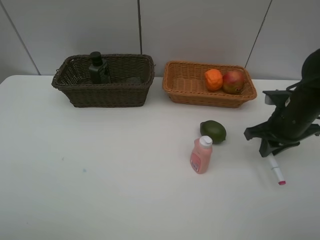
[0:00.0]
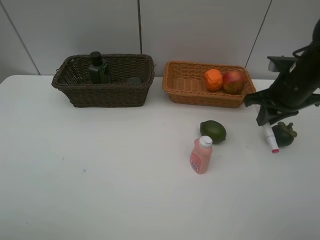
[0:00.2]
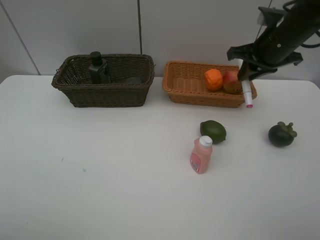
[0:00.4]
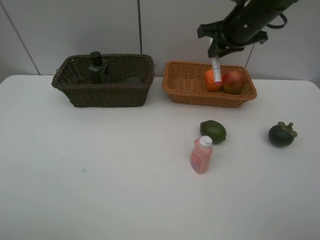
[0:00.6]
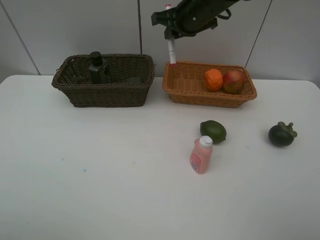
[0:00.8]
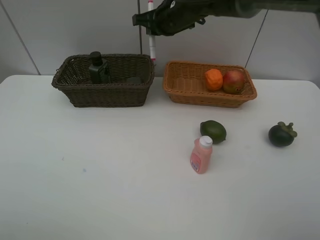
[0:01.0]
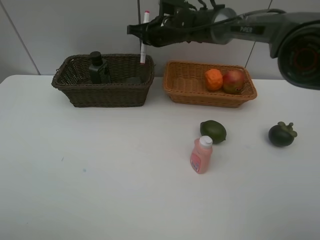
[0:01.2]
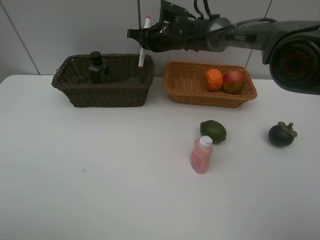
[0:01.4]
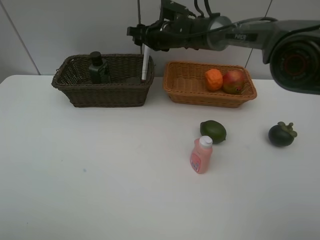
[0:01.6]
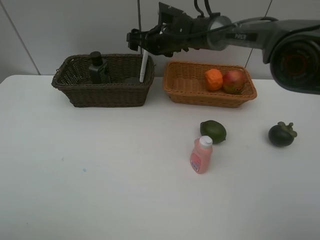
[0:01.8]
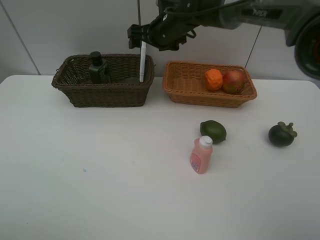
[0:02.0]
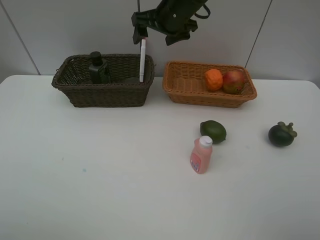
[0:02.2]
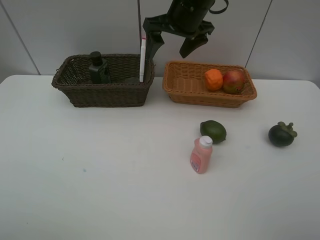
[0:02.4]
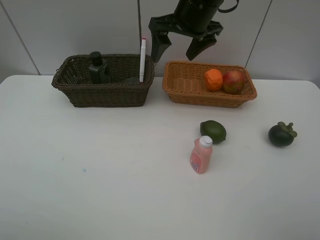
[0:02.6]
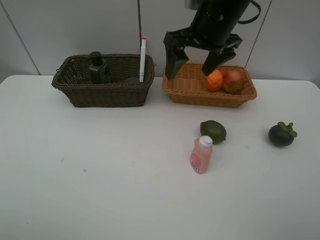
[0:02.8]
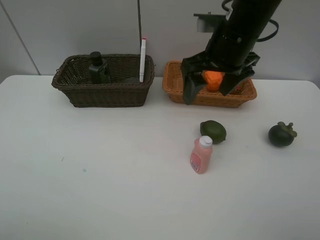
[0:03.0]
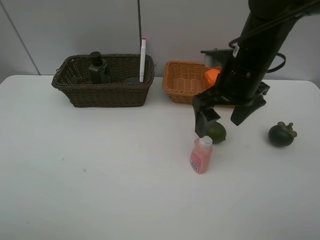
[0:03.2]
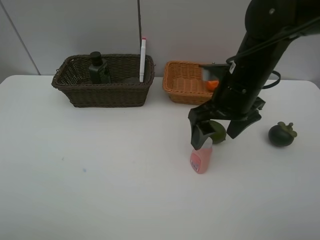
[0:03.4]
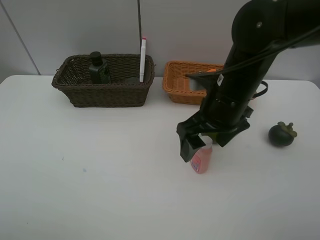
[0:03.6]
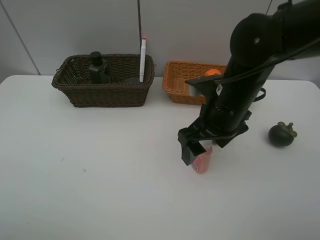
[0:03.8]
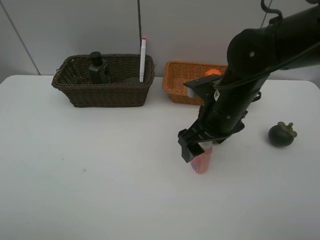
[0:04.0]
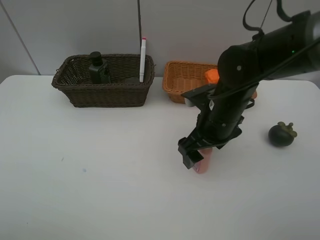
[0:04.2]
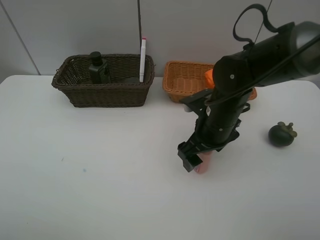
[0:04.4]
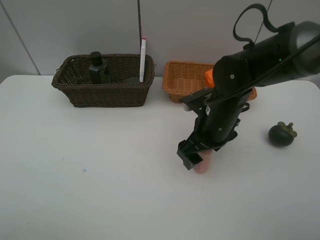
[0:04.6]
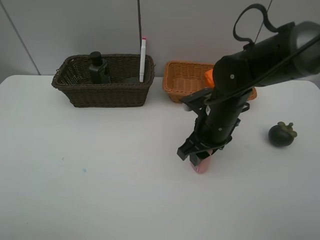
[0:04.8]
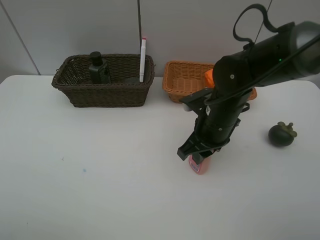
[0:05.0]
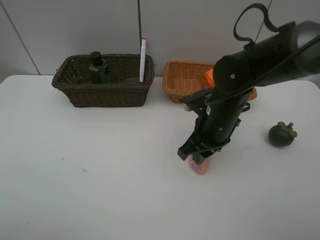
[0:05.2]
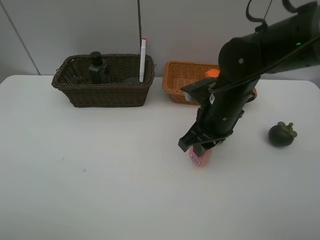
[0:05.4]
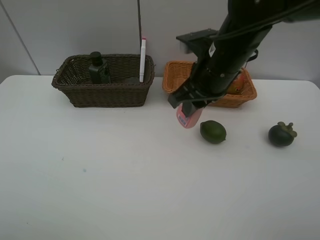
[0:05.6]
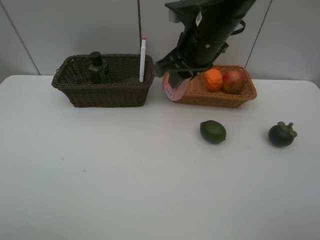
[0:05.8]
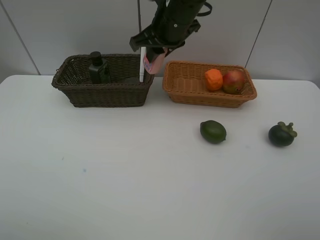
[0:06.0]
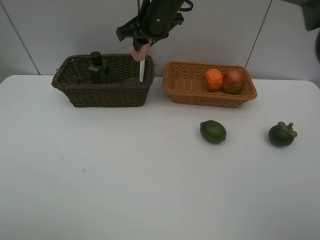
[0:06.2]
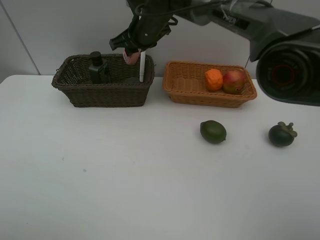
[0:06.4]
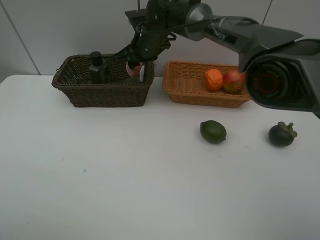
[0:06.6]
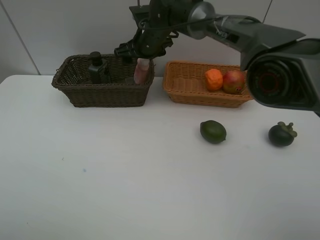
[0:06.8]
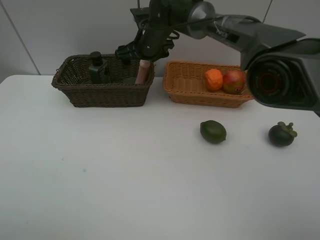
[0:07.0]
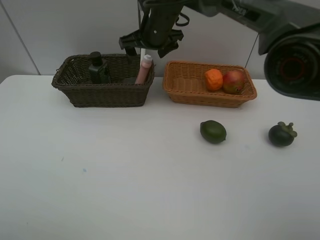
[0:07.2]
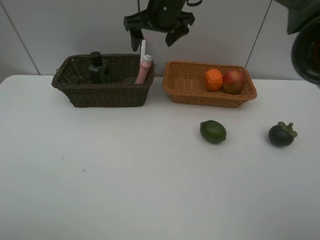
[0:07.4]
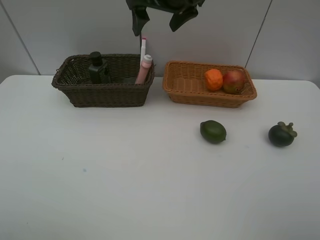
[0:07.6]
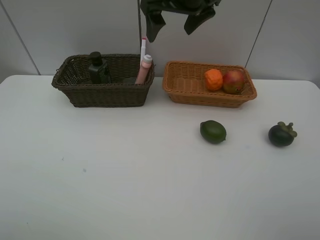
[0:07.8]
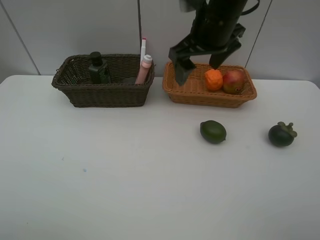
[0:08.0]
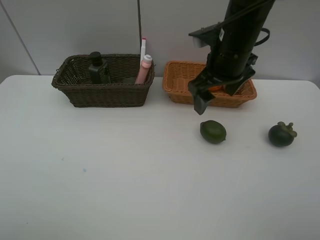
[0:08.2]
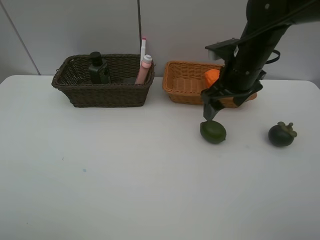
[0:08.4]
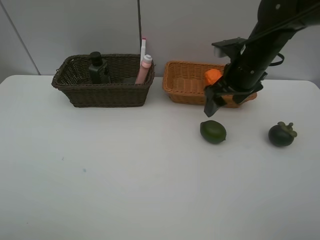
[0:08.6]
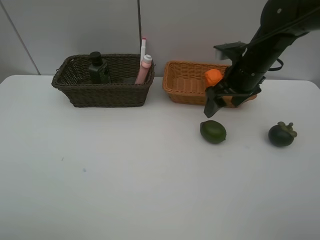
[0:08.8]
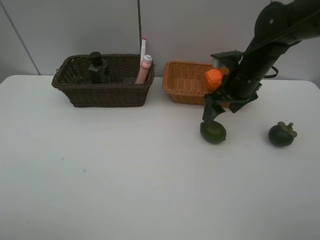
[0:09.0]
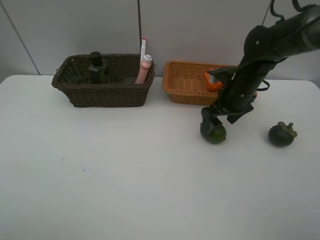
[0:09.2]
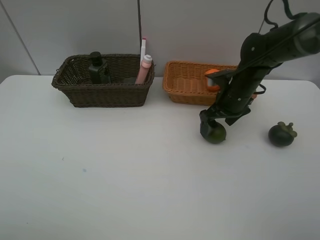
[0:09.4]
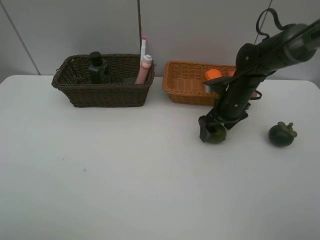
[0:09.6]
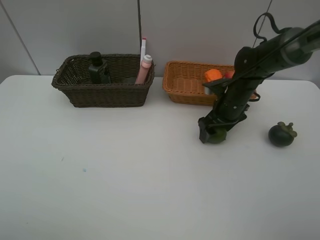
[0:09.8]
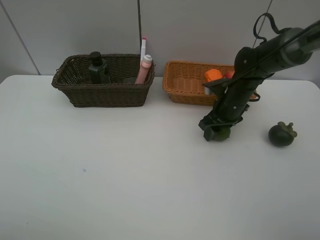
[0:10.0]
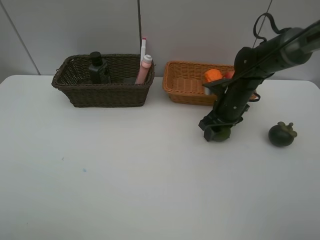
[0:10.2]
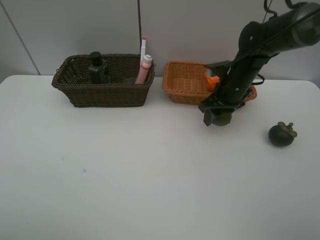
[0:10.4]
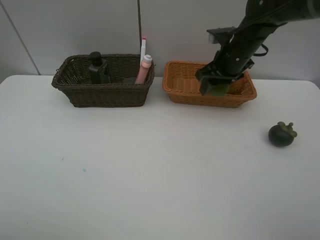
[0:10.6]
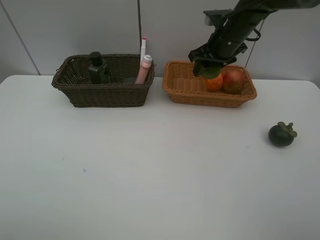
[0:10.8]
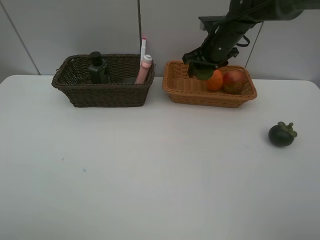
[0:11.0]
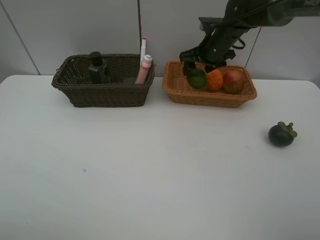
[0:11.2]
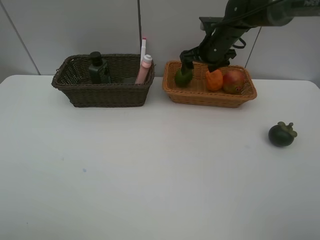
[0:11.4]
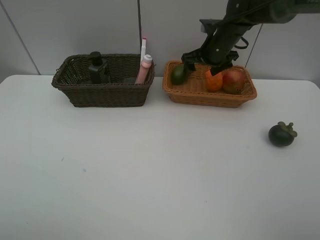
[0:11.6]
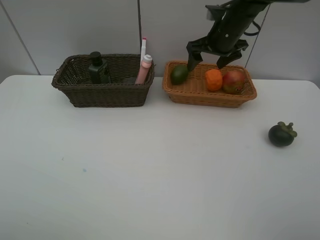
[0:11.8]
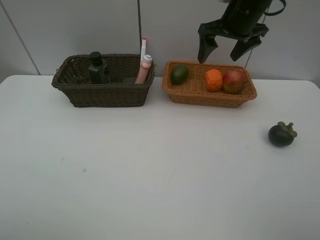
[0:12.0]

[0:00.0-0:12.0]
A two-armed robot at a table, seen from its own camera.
Task of the whole recording: Place multiple objects separately in different baskets.
Step, 0:00.0 to 0:02.0: Place the red marker in the dark basket with right gripper.
Step, 0:02.2 to 0:05.4: Pick up the laundry detergent with right gripper.
Step, 0:05.6 to 0:07.2: Place the laundry detergent in the dark basket with right gripper.
Step, 0:07.4 to 0:10.4: Pick up the lime with right gripper.
Step, 0:10.6 to 0:11.4: Place the lime in the light basket with right gripper.
0:00.0 to 0:01.6: The right gripper travels to the left and forward by roughly 35 cm, and opens up.
0:01.6 to 0:03.0: The right gripper moves backward, to the right and upward, roughly 25 cm.
0:03.0 to 0:04.4: The right gripper travels downward by roughly 15 cm.
0:04.4 to 0:06.0: The right gripper heads upward, forward and to the left, covering about 20 cm, and closes its fingers.
0:06.0 to 0:07.6: The right gripper goes approximately 5 cm upward, and opens.
0:07.6 to 0:09.0: The right gripper moves downward and to the right, about 20 cm.
0:09.0 to 0:10.4: The right gripper closes its fingers.
0:10.4 to 0:12.0: The right gripper is displaced upward by about 15 cm, and opens its fingers.

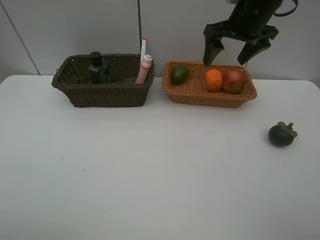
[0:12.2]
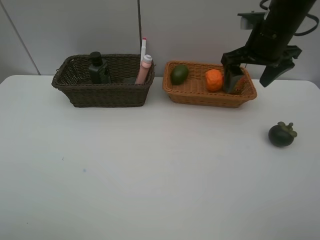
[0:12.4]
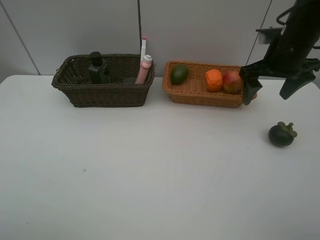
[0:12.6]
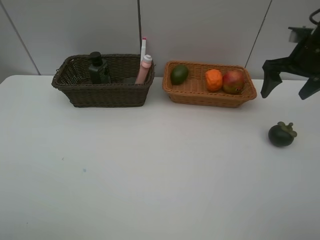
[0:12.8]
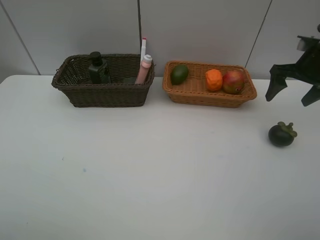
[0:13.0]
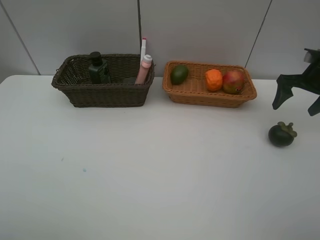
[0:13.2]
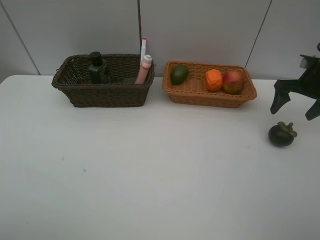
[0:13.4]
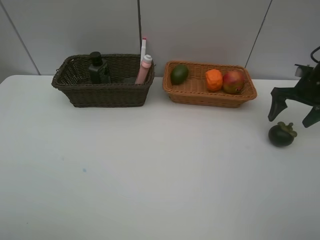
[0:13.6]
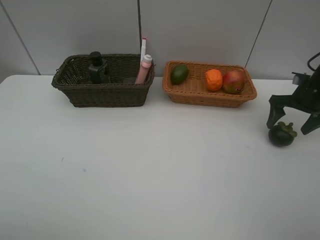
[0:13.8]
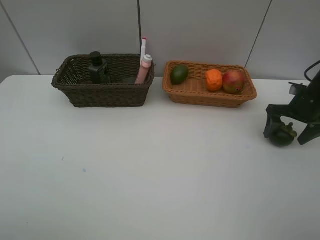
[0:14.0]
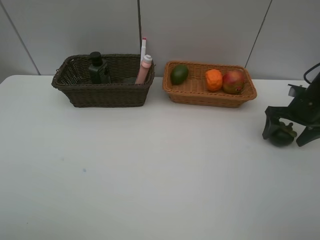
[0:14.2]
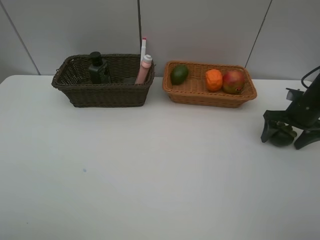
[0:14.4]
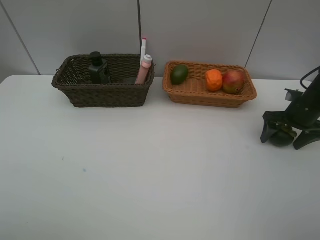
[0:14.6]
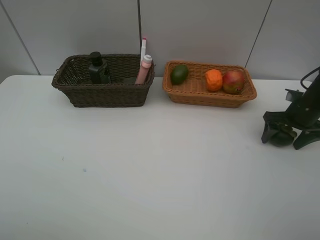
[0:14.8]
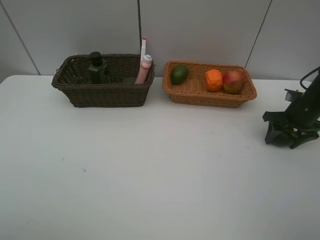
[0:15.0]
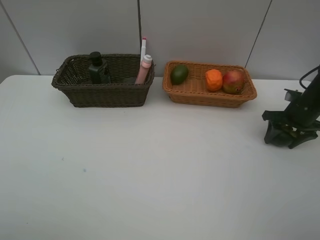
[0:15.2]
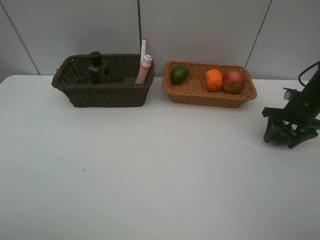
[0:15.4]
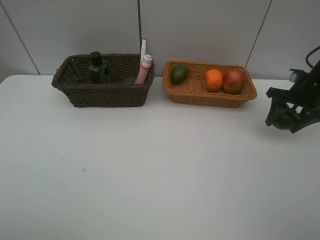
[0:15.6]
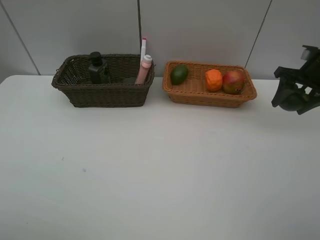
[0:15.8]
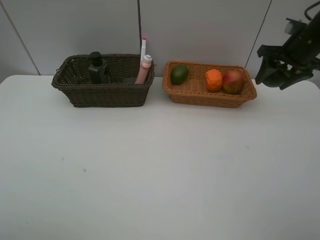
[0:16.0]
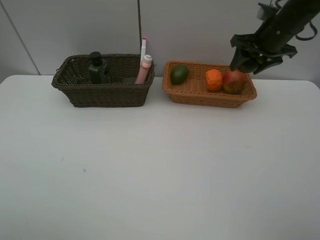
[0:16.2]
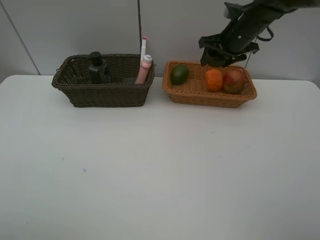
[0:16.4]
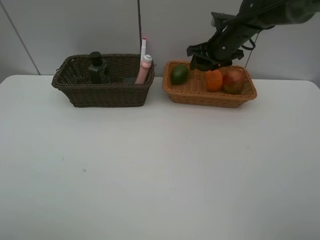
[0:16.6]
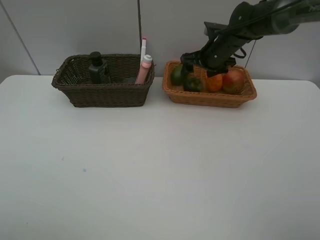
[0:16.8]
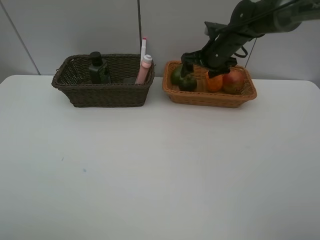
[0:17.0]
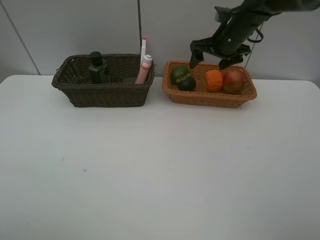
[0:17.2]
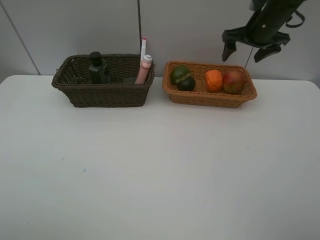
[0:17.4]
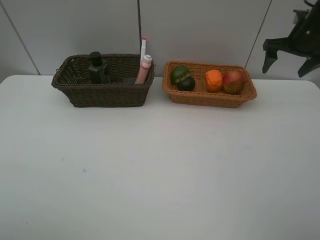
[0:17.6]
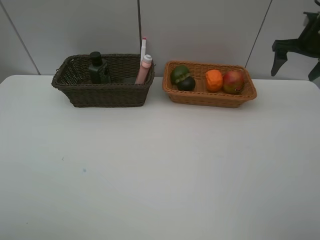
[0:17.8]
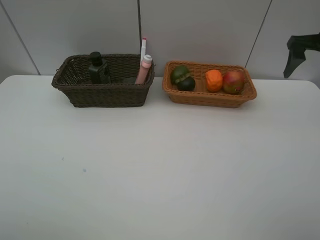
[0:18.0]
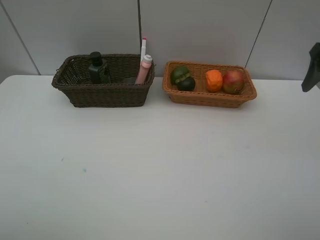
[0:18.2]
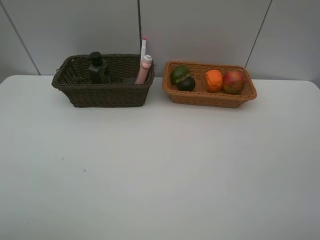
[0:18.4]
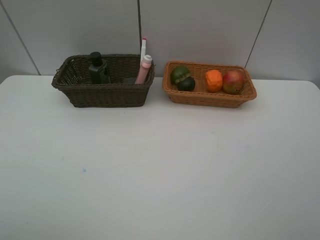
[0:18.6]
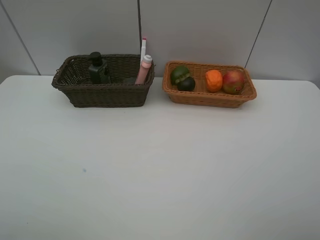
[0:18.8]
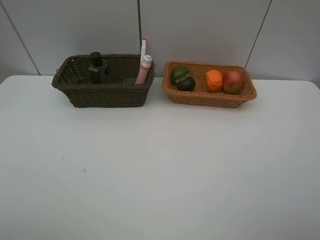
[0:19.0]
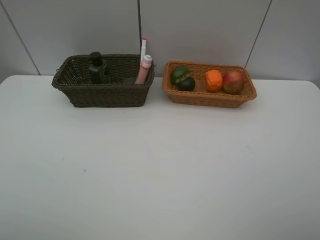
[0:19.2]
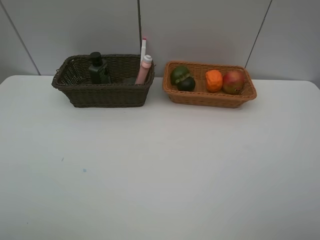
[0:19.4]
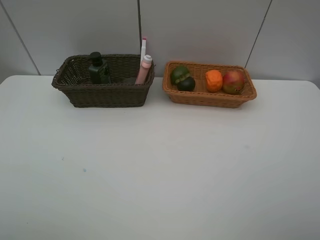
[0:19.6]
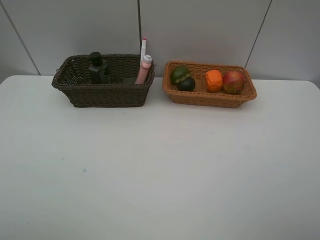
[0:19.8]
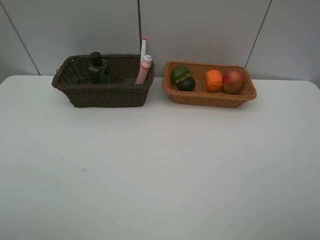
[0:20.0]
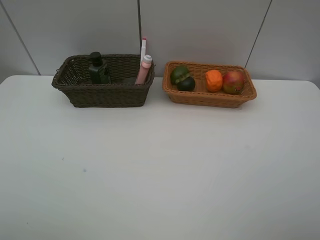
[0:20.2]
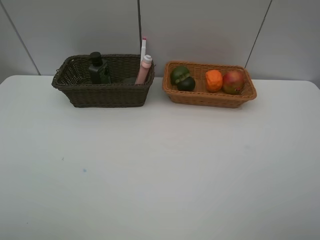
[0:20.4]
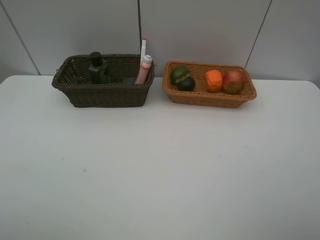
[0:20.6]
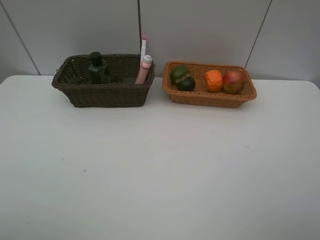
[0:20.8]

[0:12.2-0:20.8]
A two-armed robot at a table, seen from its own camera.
Task of the whole recording: Place multiple objects separately in different baskets.
Step, 0:12.2 to 0:15.4: Pick up the mangosteen with right gripper.
Step, 0:15.6 to 0:17.2: Place the mangosteen in the light basket with right gripper.
0:12.2 to 0:13.6: The right gripper heads to the right and downward, covering about 25 cm.
0:13.6 to 0:15.0: The right gripper is displaced downward by some 5 cm, and closes up.
0:15.0 to 0:16.6: The right gripper is displaced to the left, forward and upward by some 25 cm.
0:16.6 to 0:18.0: The right gripper is displaced to the right, backward and upward by about 25 cm, and opens up.
0:18.0 to 0:19.4: The right gripper travels backward by about 35 cm.
0:19.4 to 0:20.8: Both grippers stay put.
